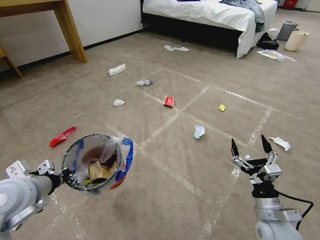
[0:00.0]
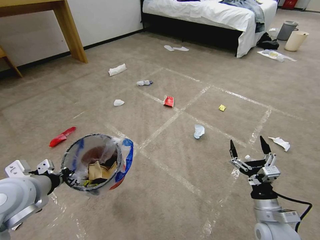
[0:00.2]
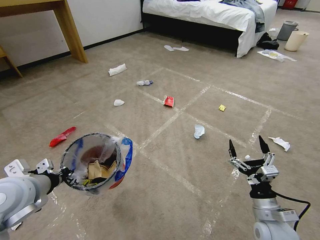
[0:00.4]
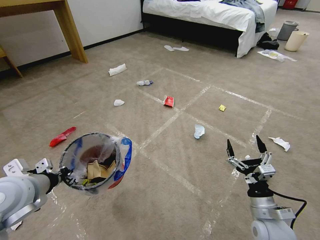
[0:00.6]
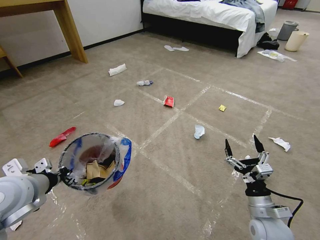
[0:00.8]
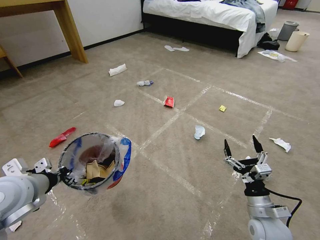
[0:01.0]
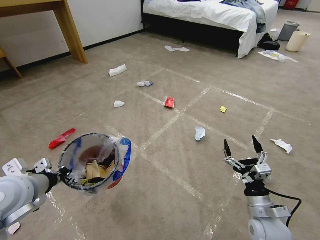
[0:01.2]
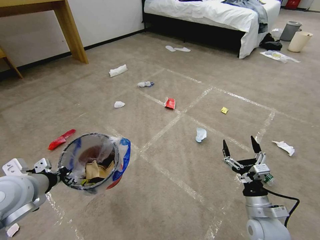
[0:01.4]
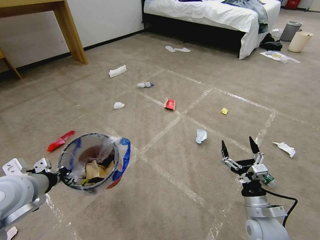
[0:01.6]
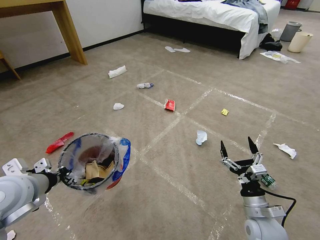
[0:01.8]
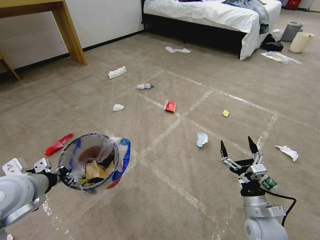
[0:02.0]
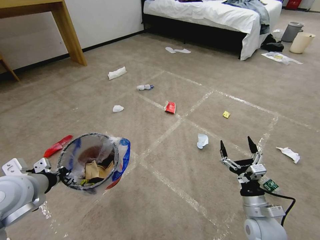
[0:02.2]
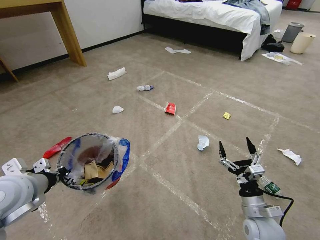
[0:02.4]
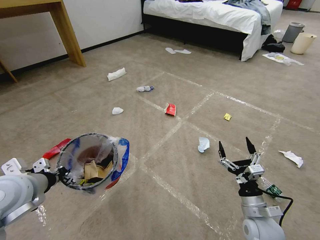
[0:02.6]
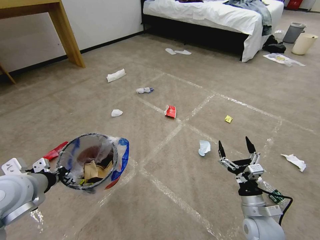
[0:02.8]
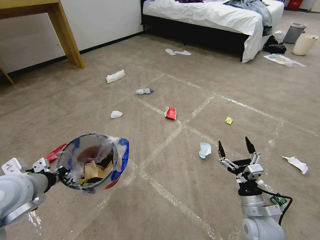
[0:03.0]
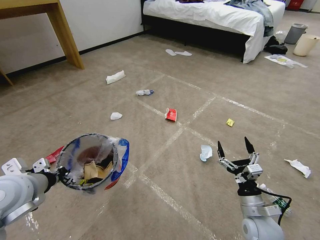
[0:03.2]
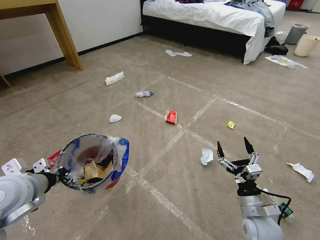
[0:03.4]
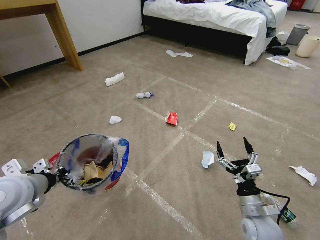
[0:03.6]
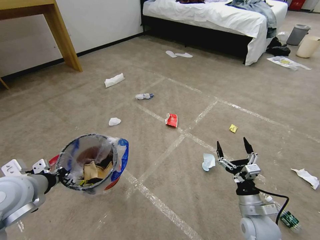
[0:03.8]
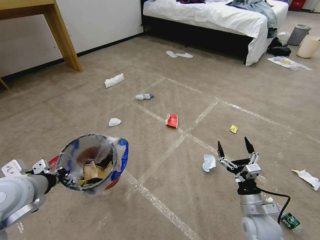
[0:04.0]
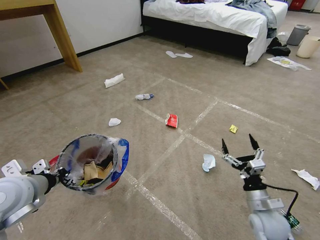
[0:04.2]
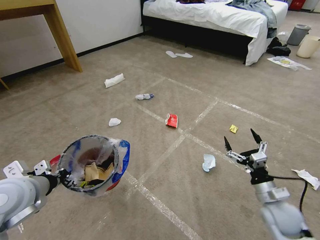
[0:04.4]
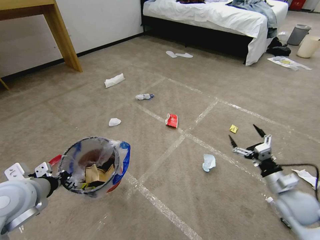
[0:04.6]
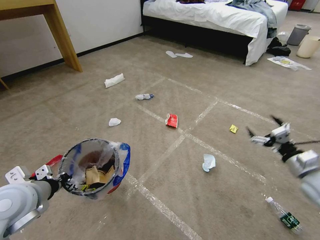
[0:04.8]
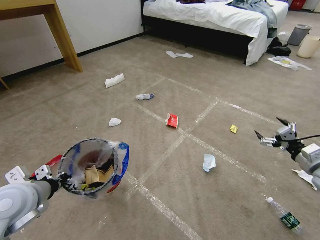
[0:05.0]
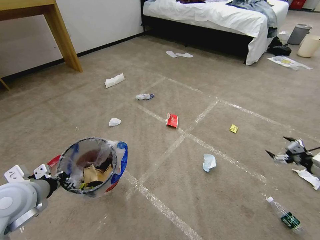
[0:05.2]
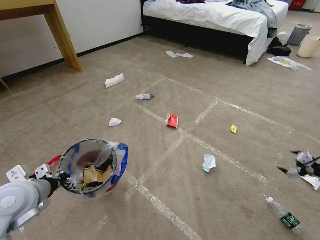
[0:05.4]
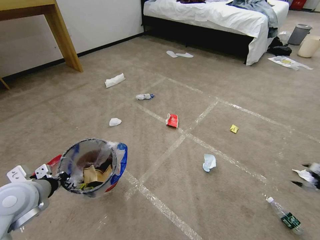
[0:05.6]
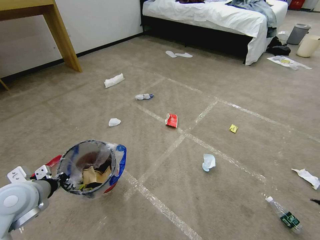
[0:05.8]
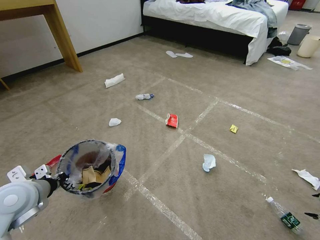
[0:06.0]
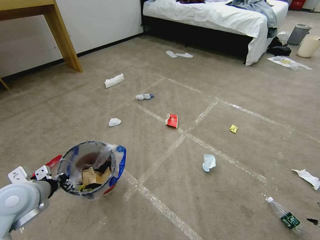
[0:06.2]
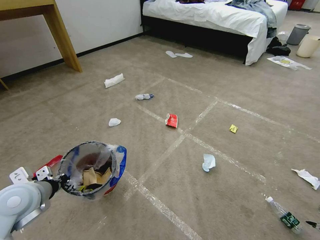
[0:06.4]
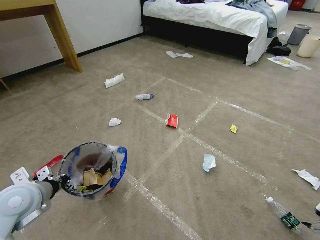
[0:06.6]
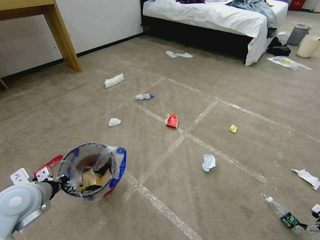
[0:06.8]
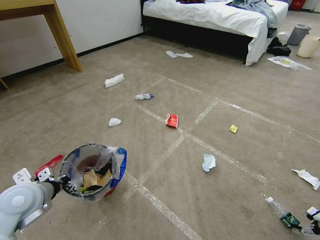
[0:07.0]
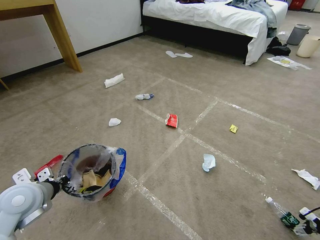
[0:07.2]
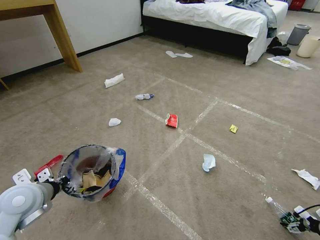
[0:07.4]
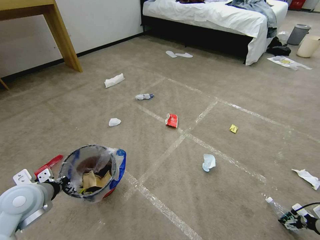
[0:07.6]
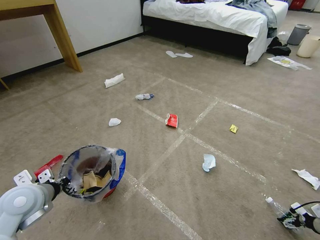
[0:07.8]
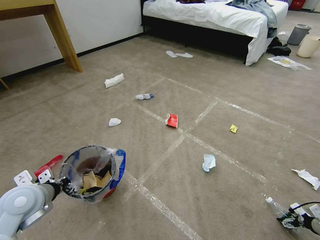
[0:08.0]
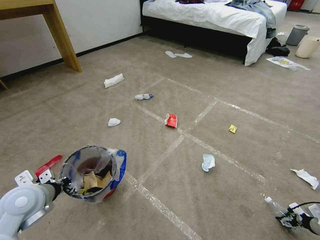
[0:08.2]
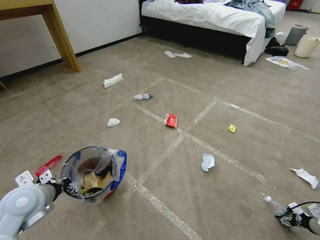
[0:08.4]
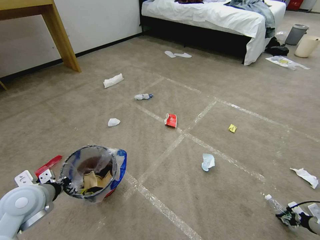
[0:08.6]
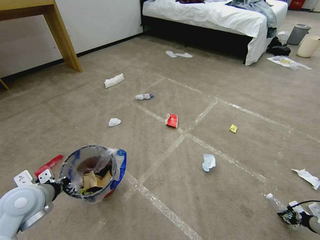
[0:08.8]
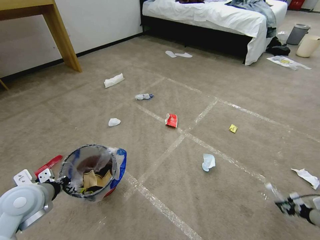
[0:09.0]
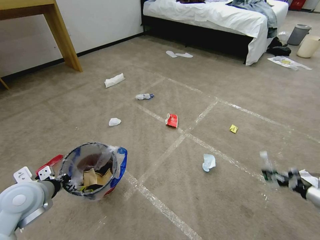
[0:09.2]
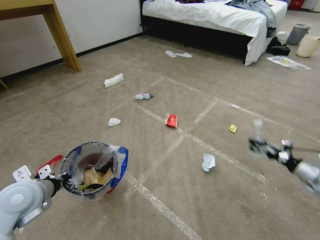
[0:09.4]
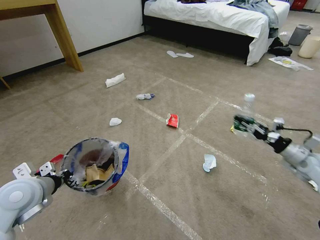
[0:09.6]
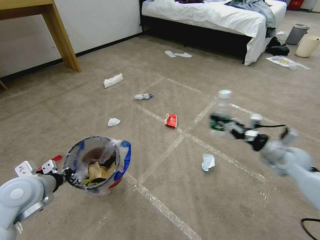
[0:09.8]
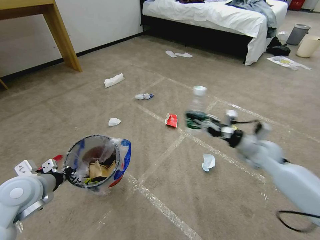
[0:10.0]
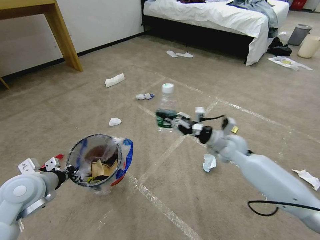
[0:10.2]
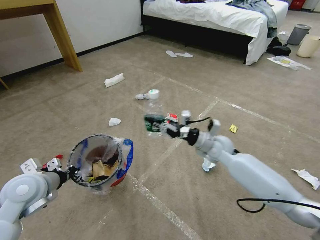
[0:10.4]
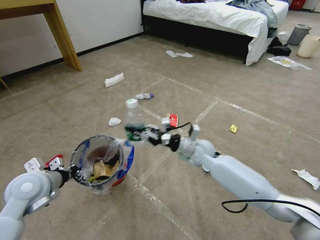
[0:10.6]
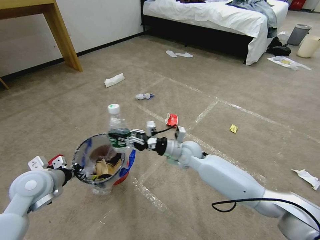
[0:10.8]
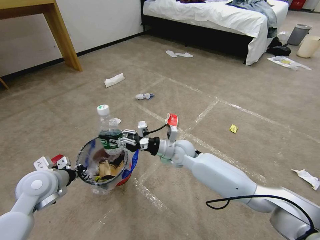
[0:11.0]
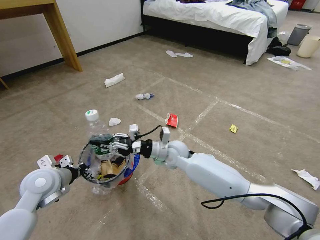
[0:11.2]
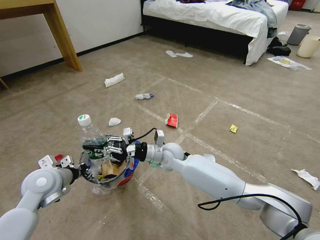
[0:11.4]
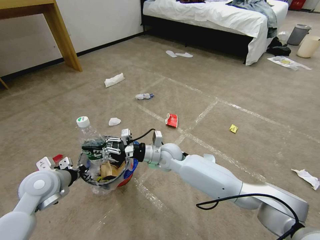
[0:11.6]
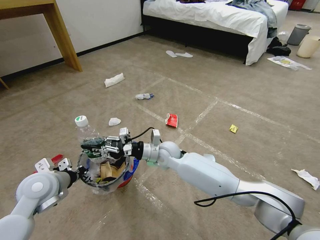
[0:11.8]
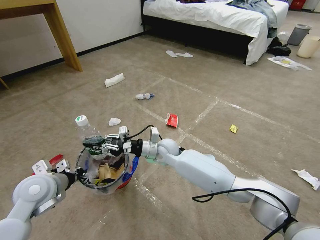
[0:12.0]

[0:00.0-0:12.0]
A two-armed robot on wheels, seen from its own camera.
Task of the whole recording: Pick up the trash bin and place the garbage on the floor into it.
0:00.0 to 0:01.6: There are only small adjustments of the grippers.
0:01.6 to 0:03.0: Both grippers stay about where they are.
0:03.0 to 0:04.4: The right gripper travels to the right by some 5 cm.
0:04.4 to 0:06.0: The right gripper shifts some 35 cm to the right.
0:06.0 to 0:07.6: The right gripper moves downward and to the left, about 15 cm.
0:07.6 to 0:09.0: The right gripper closes up.
0:09.0 to 0:10.4: The right gripper goes about 50 cm to the left and forward.
0:10.4 to 0:12.0: The right gripper goes roughly 20 cm to the left.

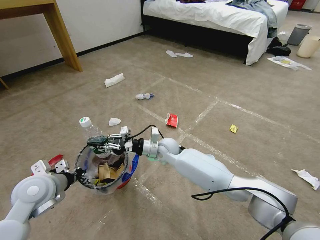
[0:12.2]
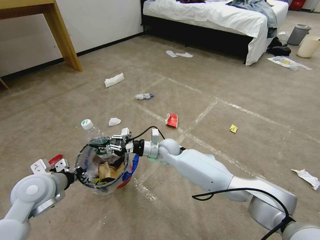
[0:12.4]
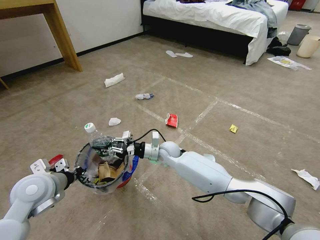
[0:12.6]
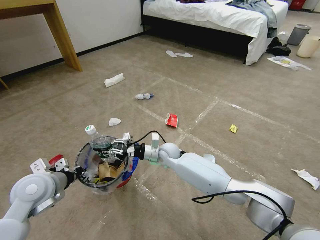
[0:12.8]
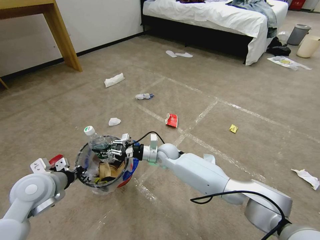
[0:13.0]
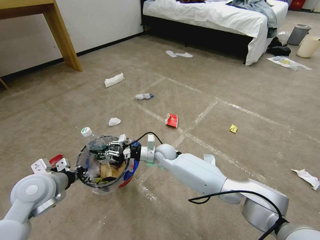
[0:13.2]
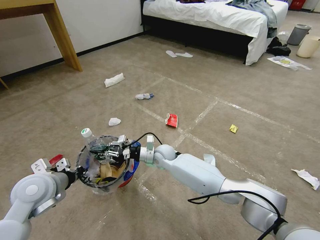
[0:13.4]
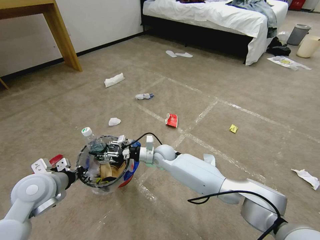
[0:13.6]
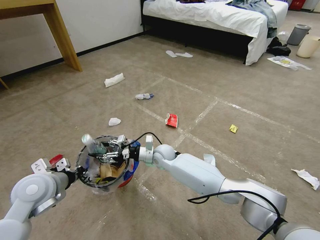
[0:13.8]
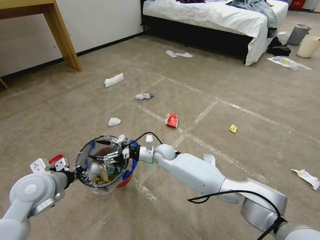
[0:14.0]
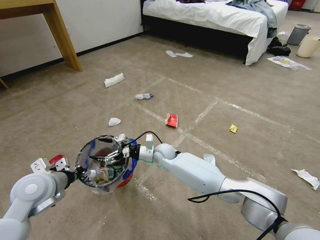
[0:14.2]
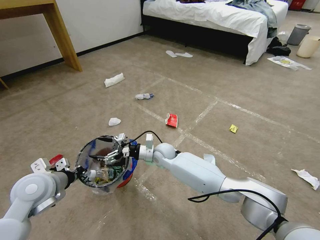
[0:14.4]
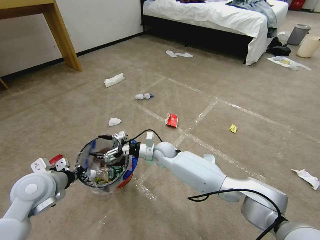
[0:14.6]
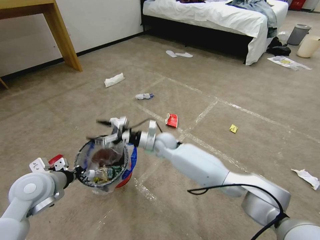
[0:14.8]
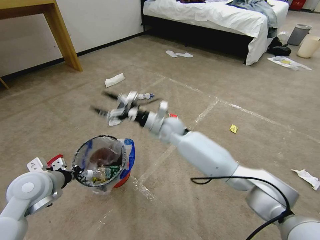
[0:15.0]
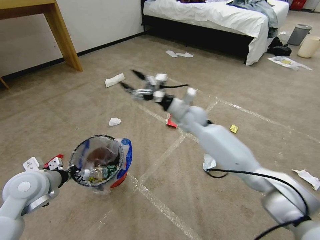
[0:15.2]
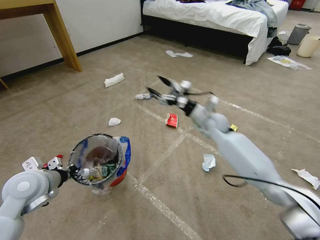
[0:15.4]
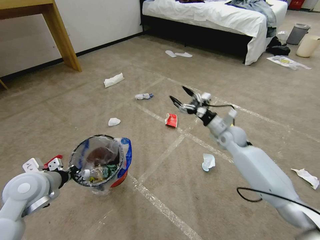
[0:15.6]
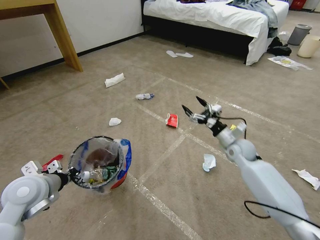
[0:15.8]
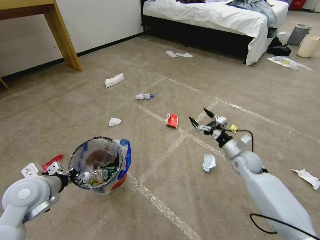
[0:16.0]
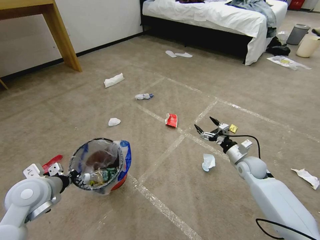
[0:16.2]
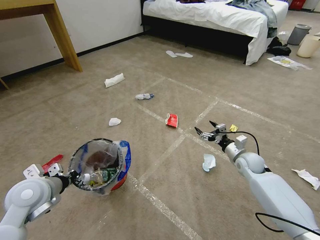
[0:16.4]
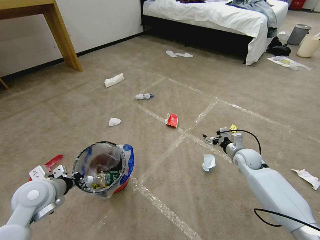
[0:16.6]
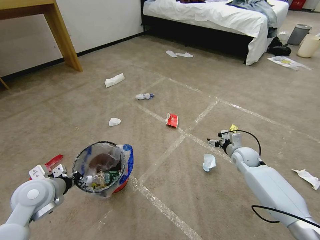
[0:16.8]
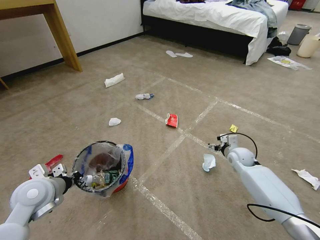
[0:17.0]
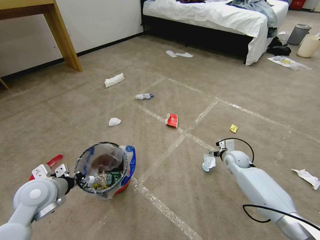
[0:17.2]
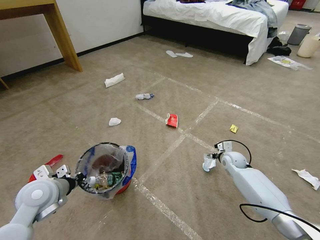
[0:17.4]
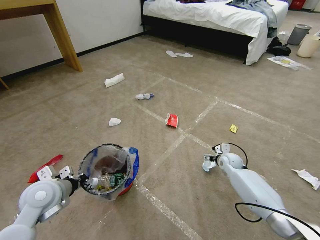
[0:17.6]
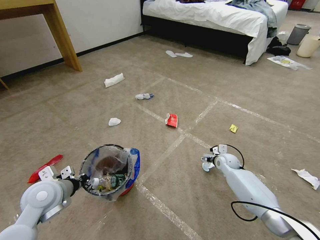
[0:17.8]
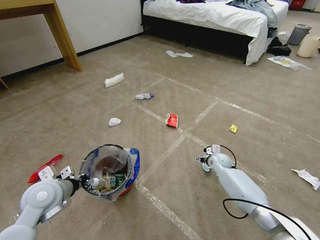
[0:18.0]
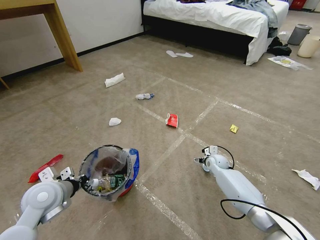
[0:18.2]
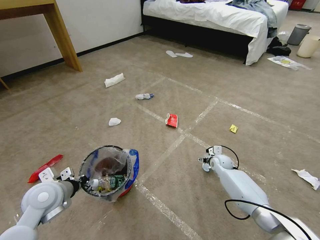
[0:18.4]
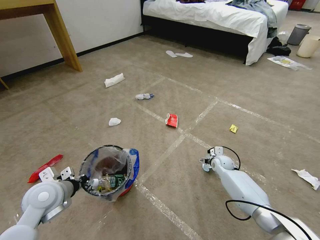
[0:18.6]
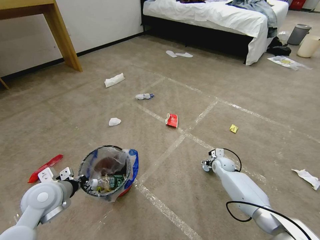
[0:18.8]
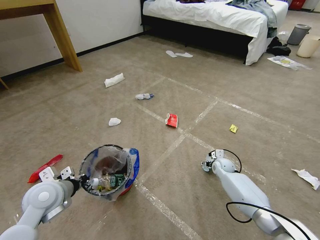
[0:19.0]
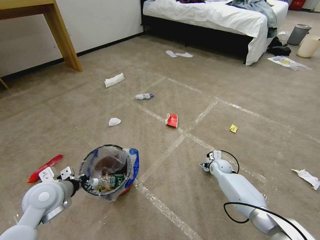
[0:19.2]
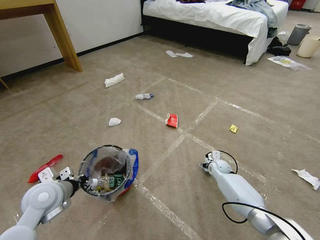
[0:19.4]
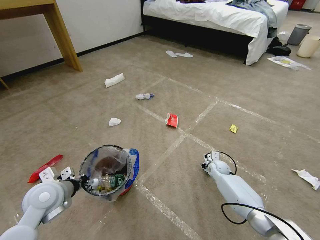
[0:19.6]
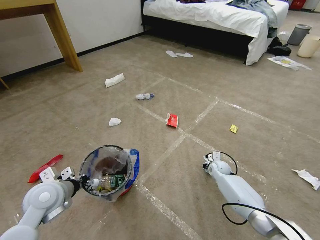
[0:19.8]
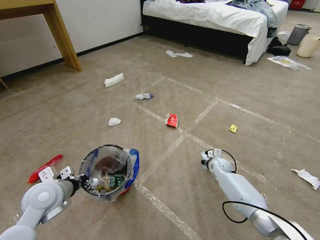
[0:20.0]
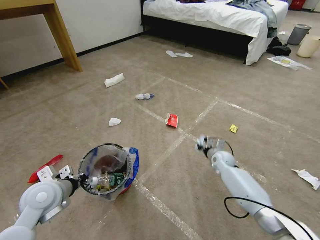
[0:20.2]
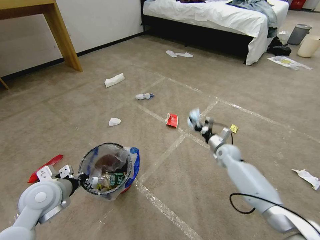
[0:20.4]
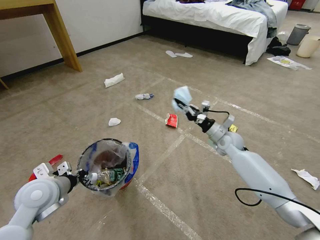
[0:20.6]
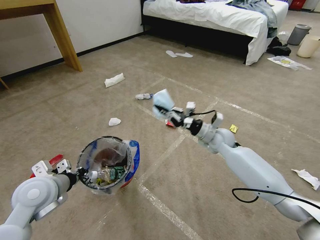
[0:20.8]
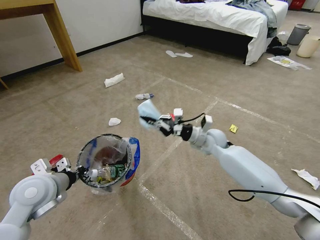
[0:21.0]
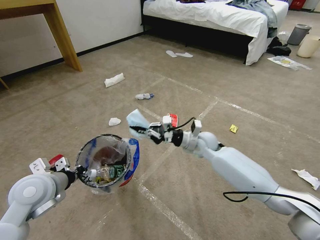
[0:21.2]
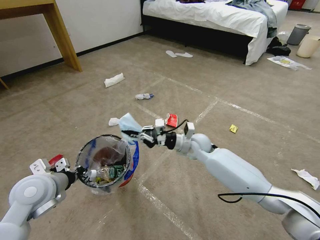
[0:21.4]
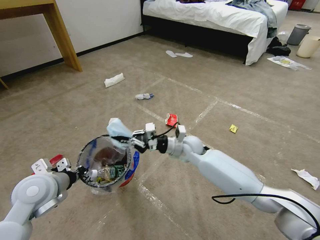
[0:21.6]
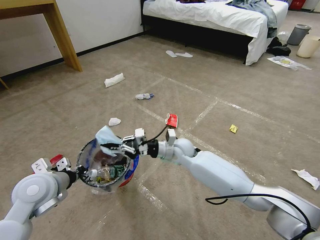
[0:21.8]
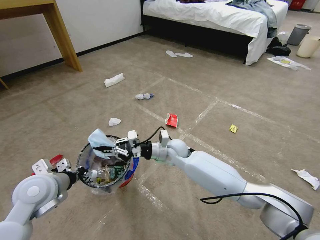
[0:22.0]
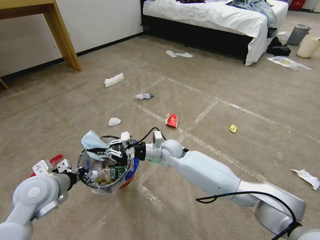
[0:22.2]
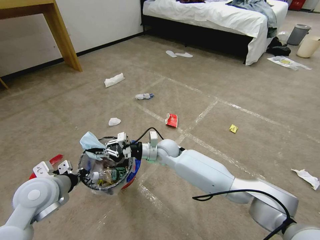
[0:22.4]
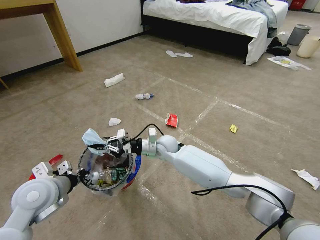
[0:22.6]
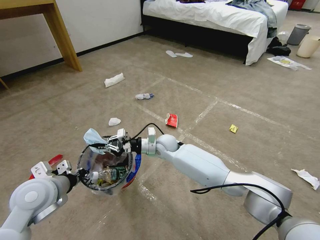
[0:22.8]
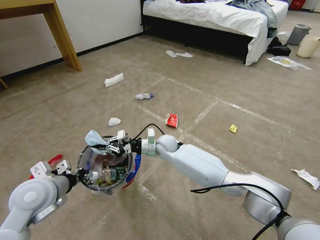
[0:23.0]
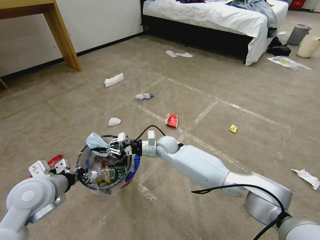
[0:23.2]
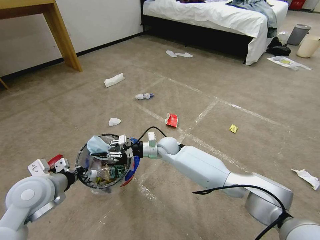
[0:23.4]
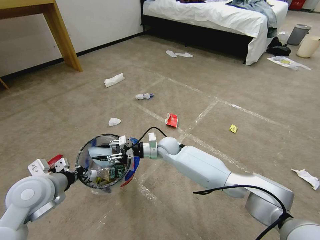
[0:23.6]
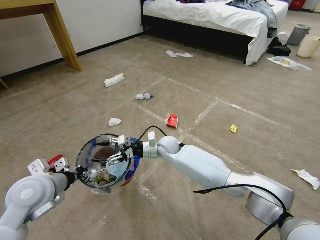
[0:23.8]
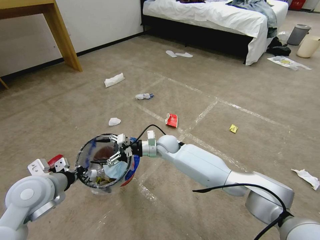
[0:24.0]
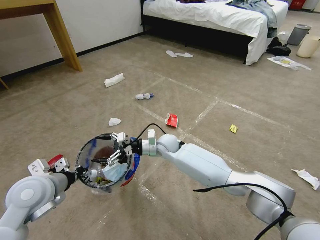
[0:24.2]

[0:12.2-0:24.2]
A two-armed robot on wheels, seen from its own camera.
Task of the whole recording: Pick up the trash bin and place the garbage on the floor into it.
0:12.2 to 0:13.8: The right gripper opens up.
0:13.8 to 0:15.2: The right gripper moves upward and to the right, some 20 cm, and opens up.
0:15.2 to 0:16.6: The right gripper shifts some 30 cm to the right and downward.
0:16.6 to 0:18.2: The right gripper shifts some 15 cm downward and to the left.
0:18.2 to 0:19.8: The right gripper closes.
0:19.8 to 0:21.2: The right gripper moves upward and to the left, roughly 25 cm, while the left gripper heads upward, covering approximately 5 cm.
0:21.2 to 0:22.6: The right gripper heads to the left, covering about 15 cm.
0:22.6 to 0:24.2: The right gripper opens its fingers.
